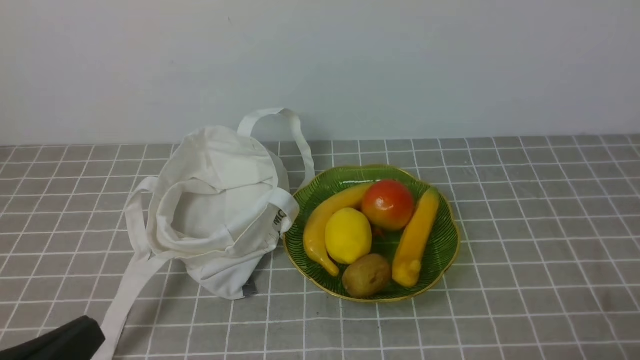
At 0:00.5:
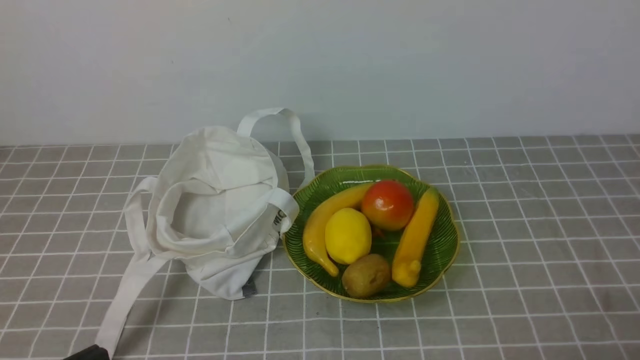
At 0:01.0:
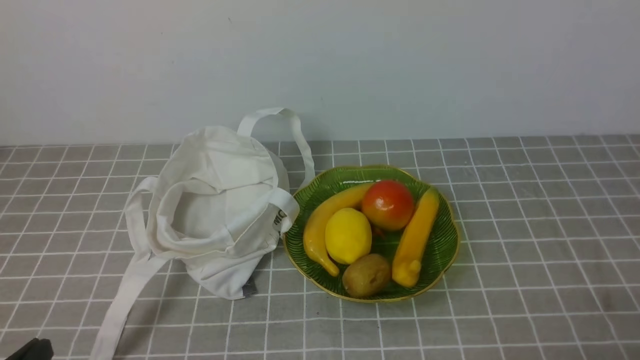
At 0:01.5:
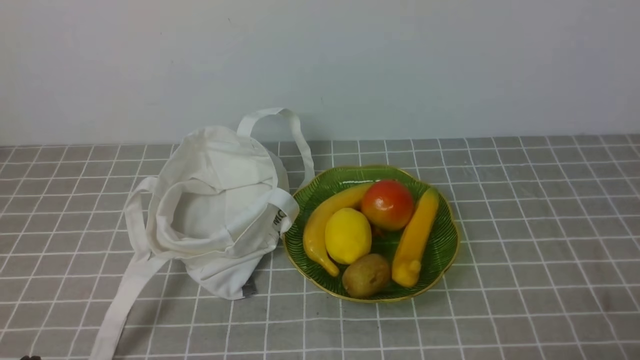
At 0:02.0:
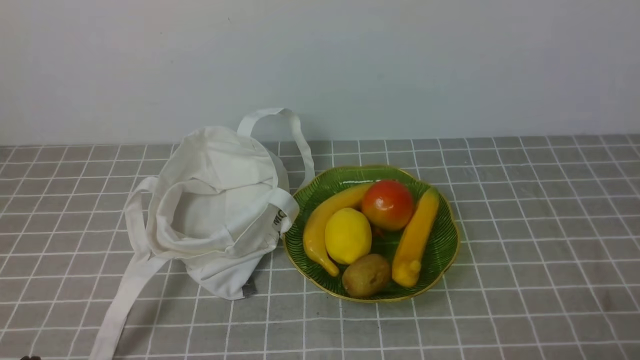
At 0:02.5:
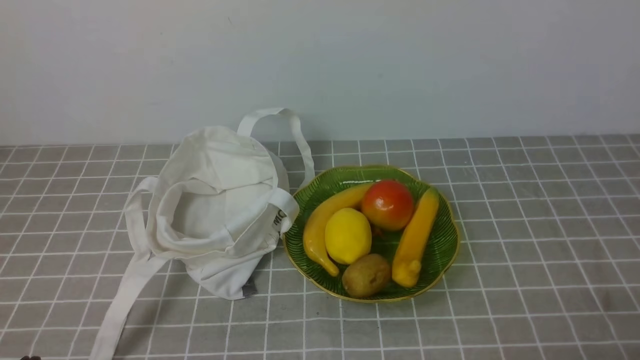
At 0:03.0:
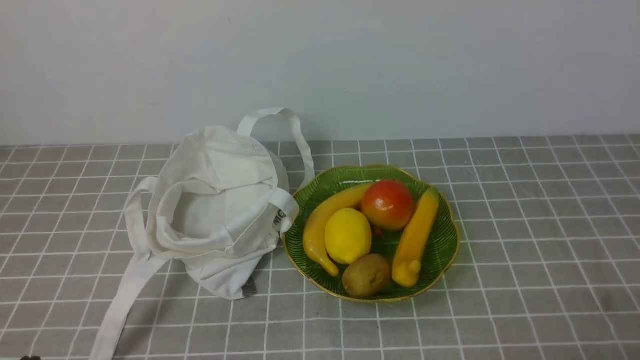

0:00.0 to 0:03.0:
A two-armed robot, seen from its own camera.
0:00.0 to 0:01.5: The left gripper goes some 10 cm downward.
0:01.5 to 0:03.0: The two grippers keep their place.
